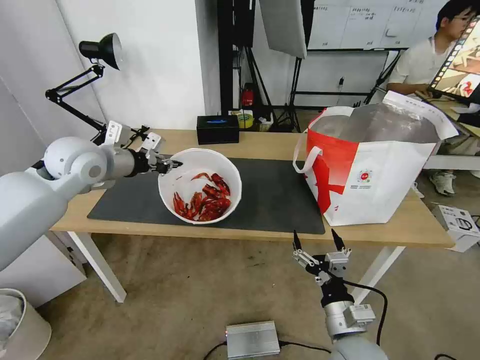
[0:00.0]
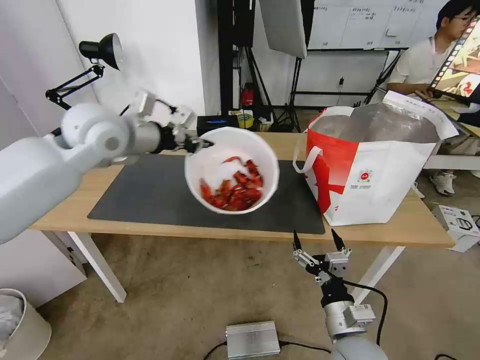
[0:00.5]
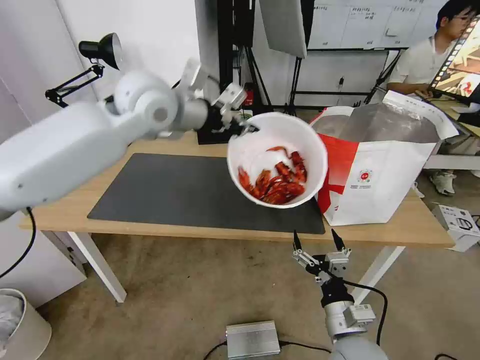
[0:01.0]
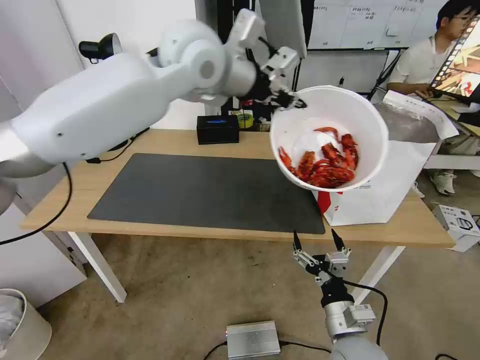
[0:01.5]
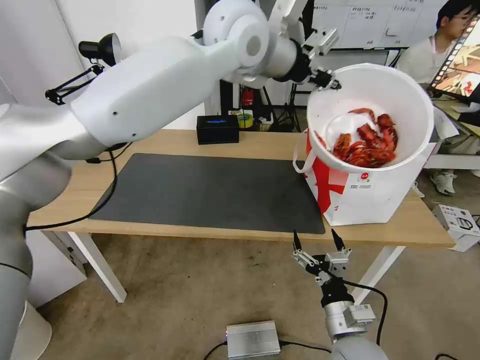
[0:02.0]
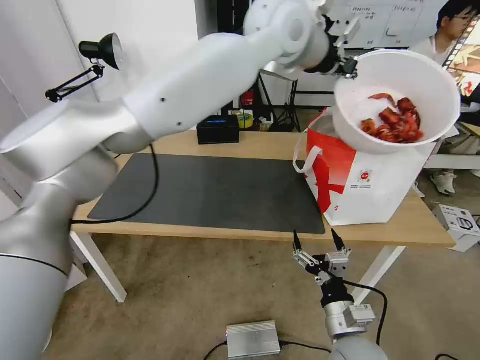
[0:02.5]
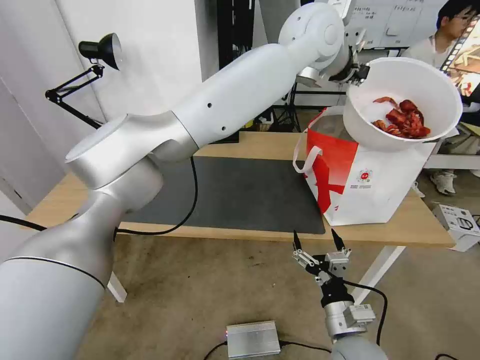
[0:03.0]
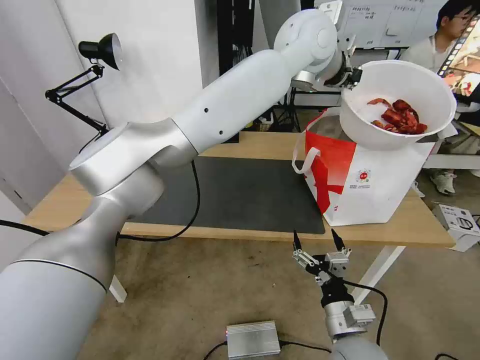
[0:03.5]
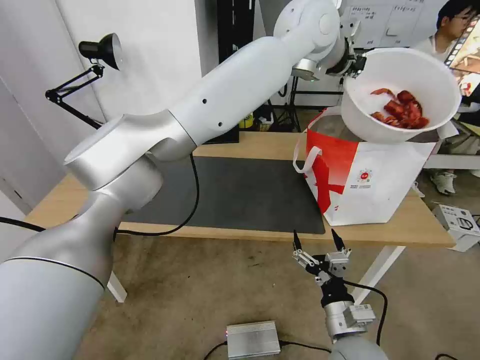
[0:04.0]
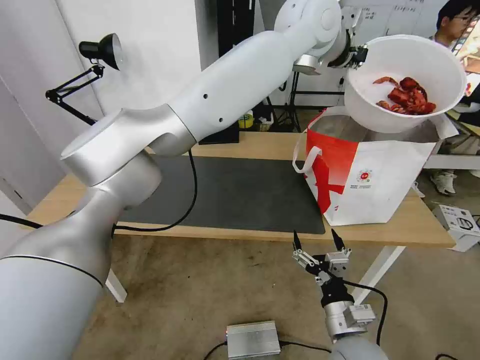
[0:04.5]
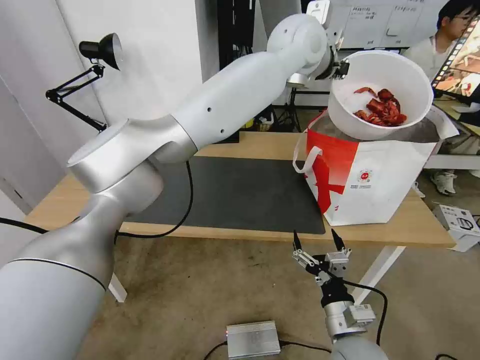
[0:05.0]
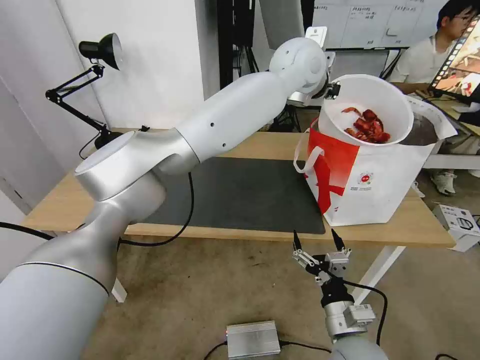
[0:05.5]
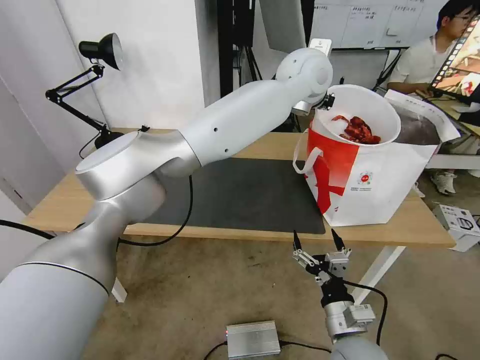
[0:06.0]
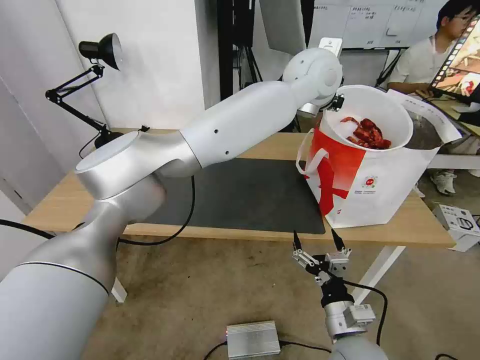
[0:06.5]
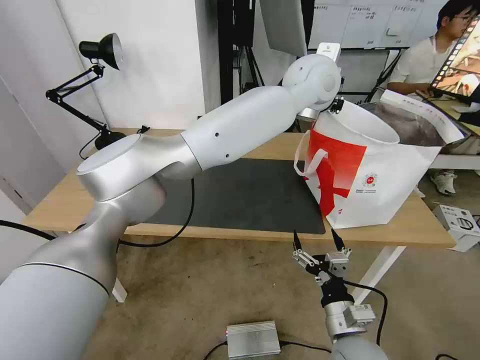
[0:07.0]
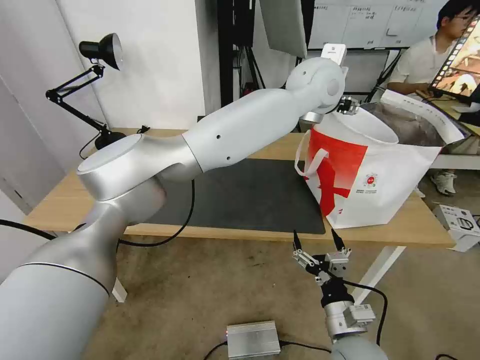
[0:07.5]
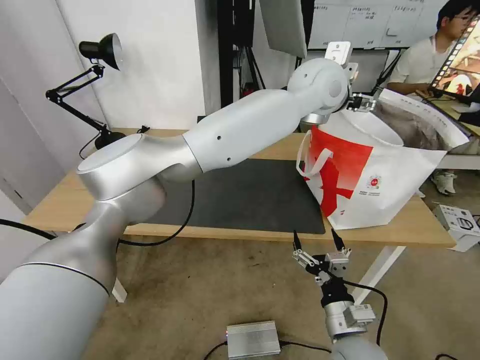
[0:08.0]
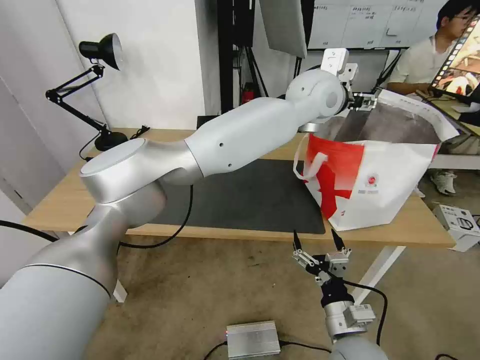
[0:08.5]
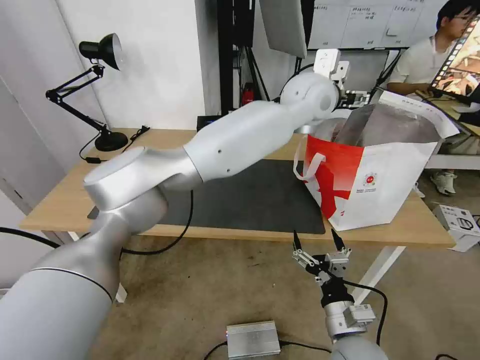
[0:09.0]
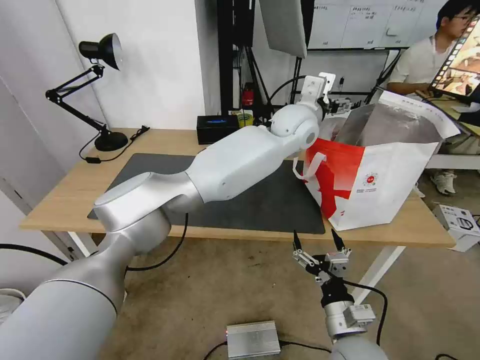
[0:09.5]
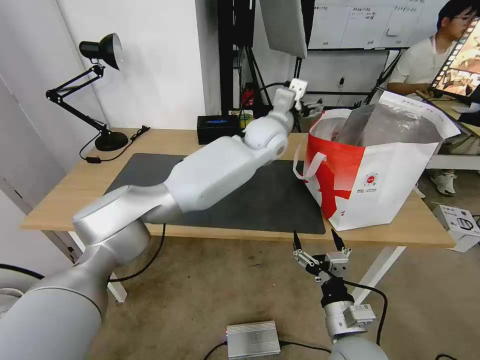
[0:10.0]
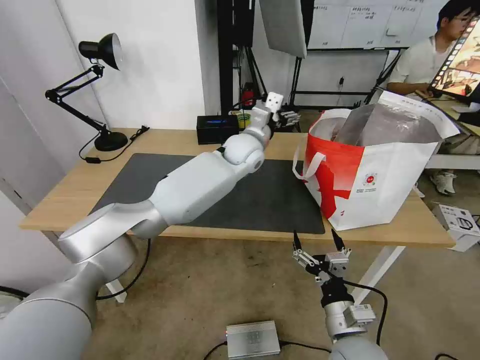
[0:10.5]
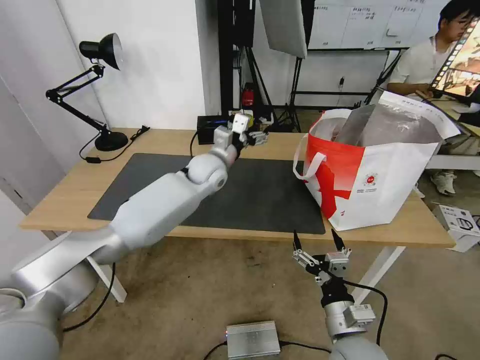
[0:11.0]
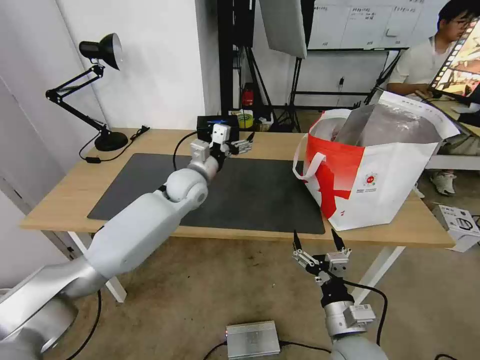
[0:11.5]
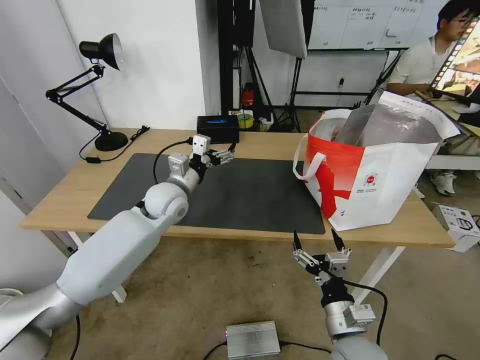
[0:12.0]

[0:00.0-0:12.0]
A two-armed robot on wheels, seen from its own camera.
Task of the whole recording: Pick up the trash from the table and place it into the takeout bag.
0:00.0 to 0:02.0: The left gripper travels to the right and upward by about 35 cm.
0:02.0 to 0:04.0: The left gripper heads to the right, covering some 10 cm.
0:04.0 to 0:06.0: The left gripper goes roughly 5 cm downward.
0:06.0 to 0:08.0: The left gripper opens its fingers.
0:08.0 to 0:10.0: The left gripper goes roughly 15 cm downward and to the left.
0:10.0 to 0:12.0: The left gripper moves to the left and downward, about 25 cm.

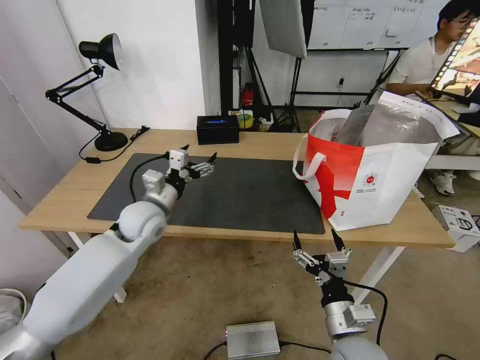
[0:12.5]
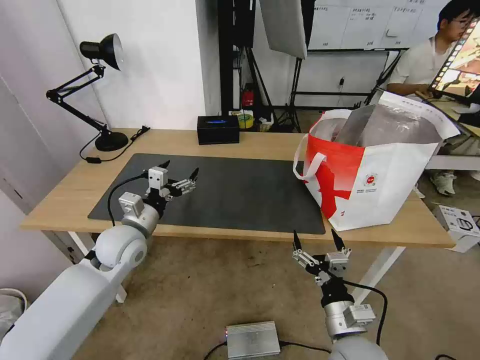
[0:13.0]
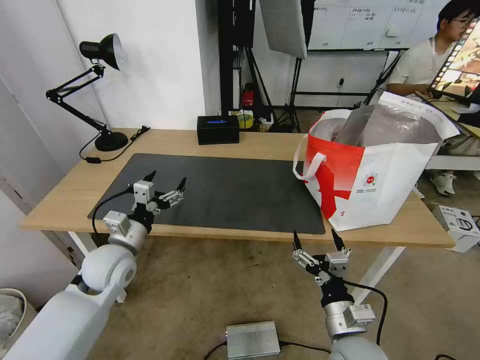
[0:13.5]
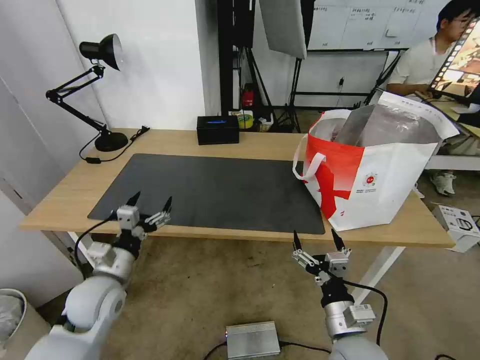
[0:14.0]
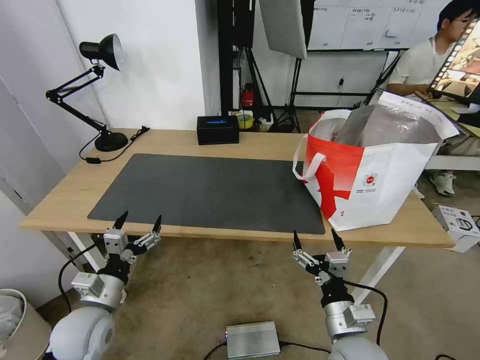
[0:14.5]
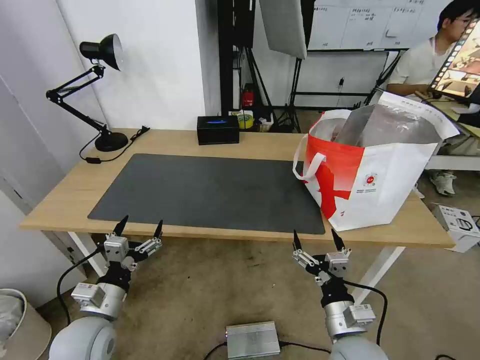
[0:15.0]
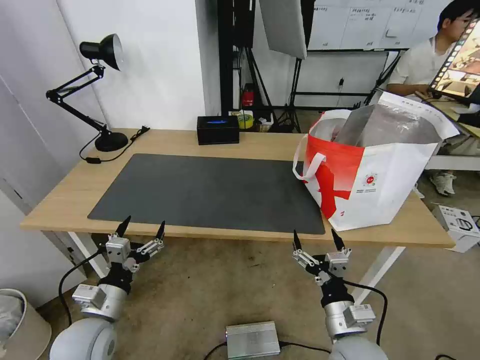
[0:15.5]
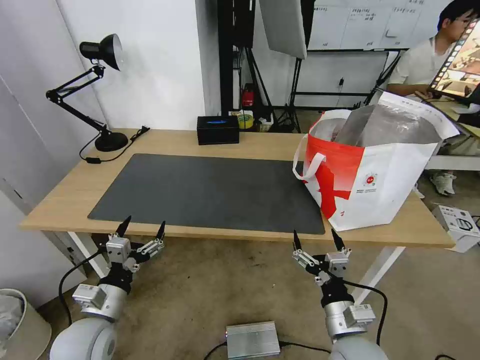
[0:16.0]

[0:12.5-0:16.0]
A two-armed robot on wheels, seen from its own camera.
Task of the whole recording: Pick up the trash from the table and place it into the takeout bag.
0:12.5 to 0:14.5: The left gripper travels backward and downward by some 25 cm.
0:14.5 to 0:16.0: The grippers stay close to where they were, moving slightly.

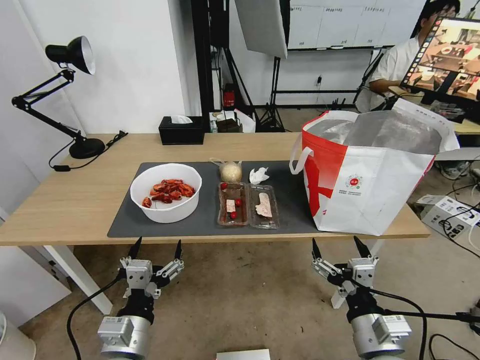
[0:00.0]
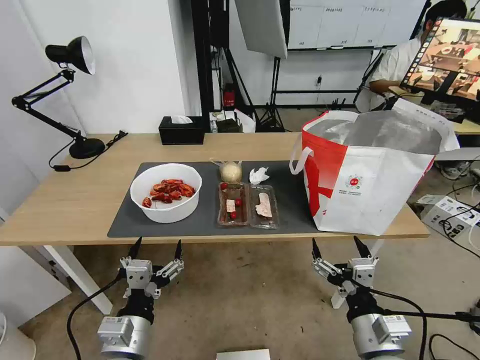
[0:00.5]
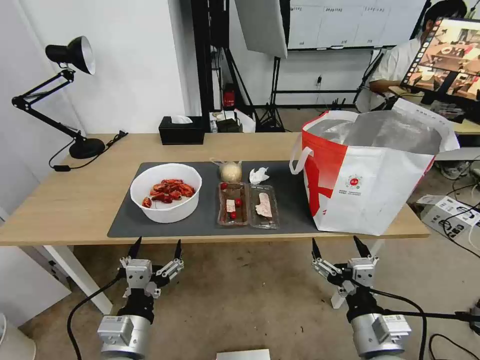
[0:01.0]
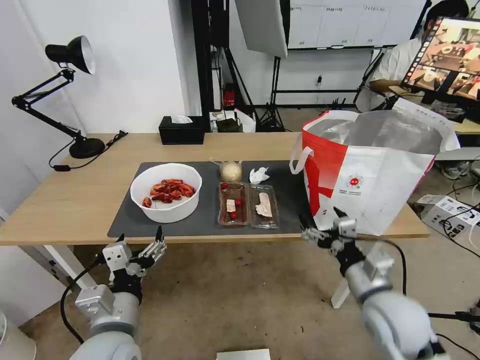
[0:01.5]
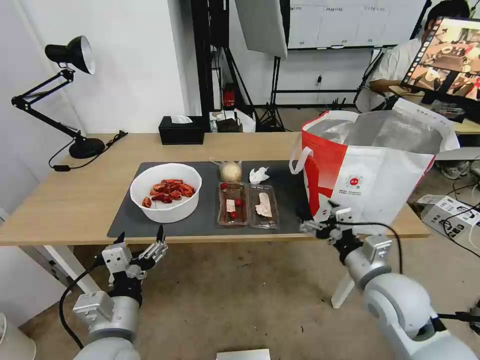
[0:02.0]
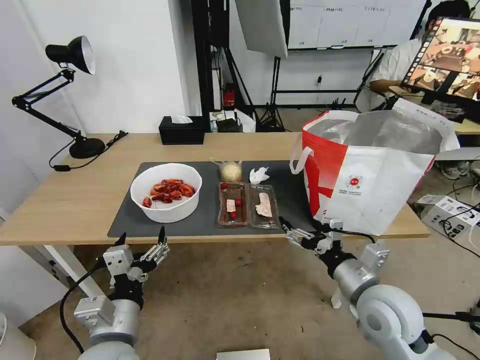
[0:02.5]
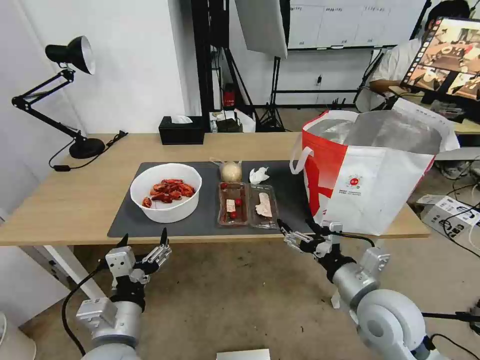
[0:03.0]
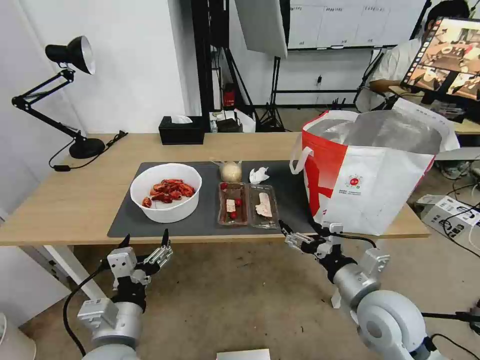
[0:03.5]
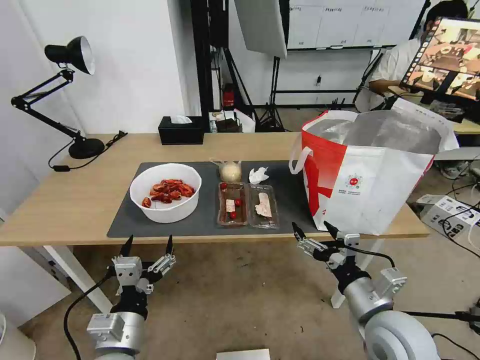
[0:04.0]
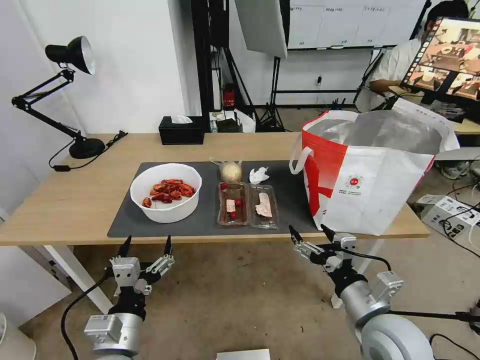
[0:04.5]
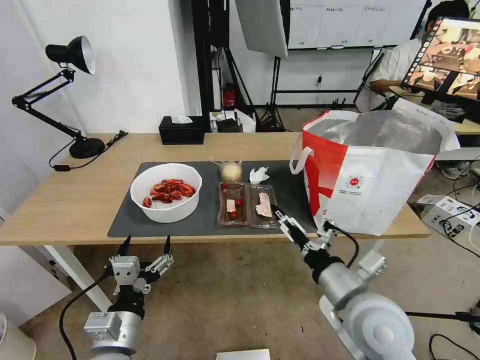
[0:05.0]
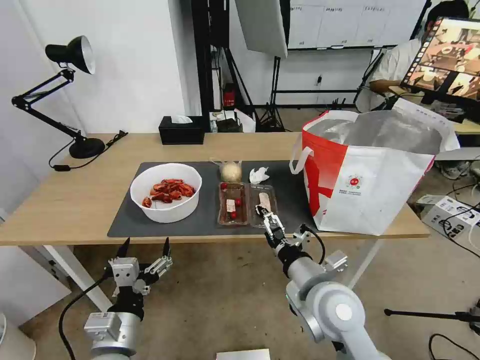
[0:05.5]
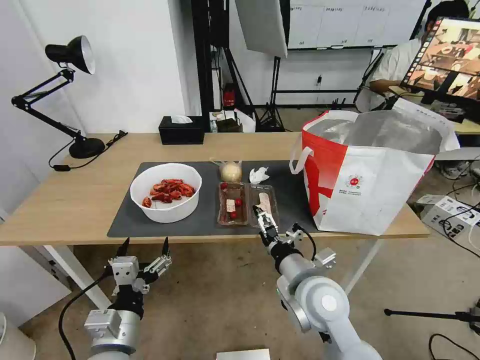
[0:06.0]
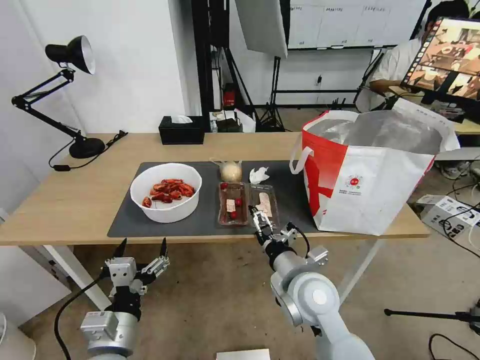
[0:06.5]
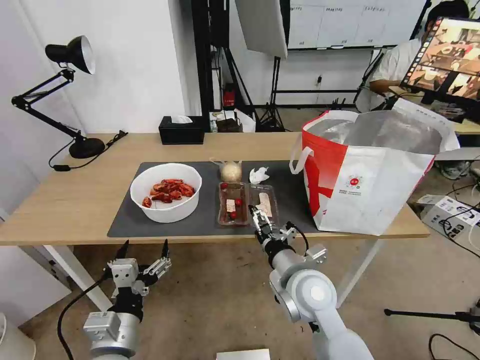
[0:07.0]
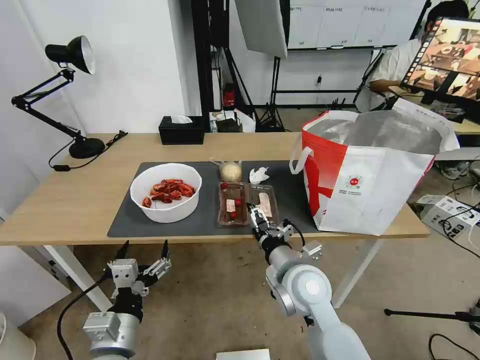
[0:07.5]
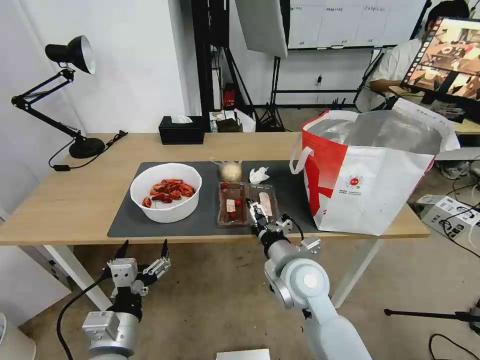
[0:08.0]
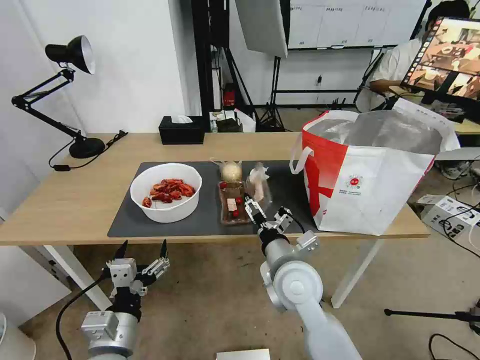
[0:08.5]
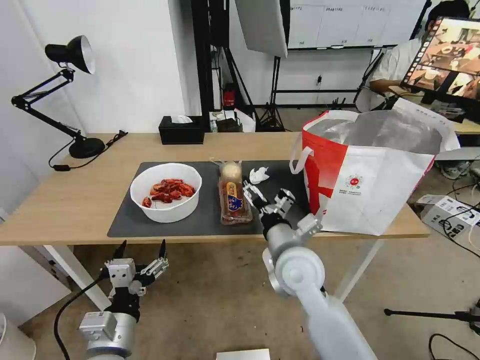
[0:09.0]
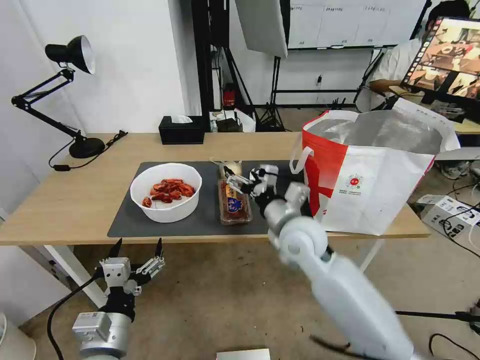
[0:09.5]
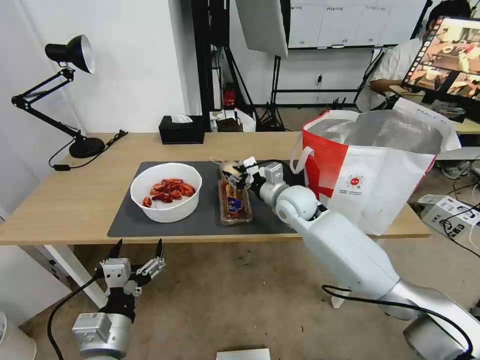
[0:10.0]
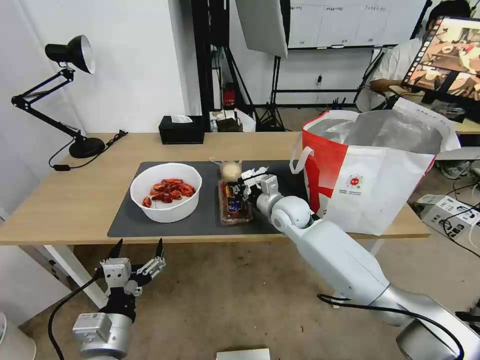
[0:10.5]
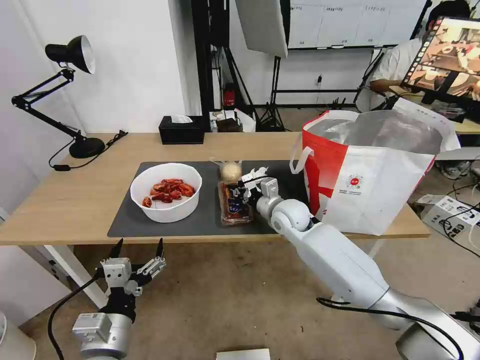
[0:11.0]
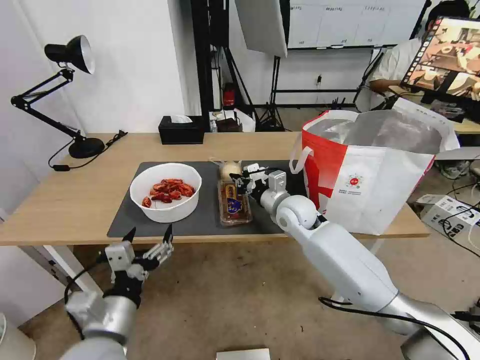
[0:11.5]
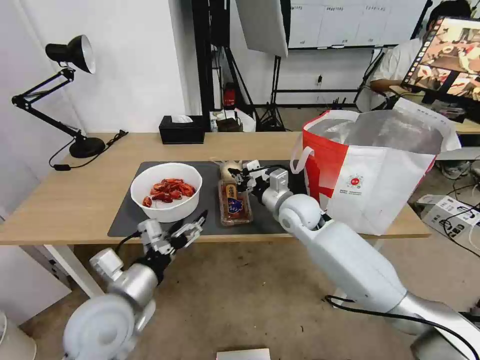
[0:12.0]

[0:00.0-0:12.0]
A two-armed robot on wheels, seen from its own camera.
Task of the whole recording: Pick up the trash from the table and place it into the takeout bag.
0:02.0 to 0:04.0: The right gripper shifts roughly 5 cm backward.
0:04.0 to 0:06.0: The right gripper moves to the left and forward, about 15 cm.
0:06.0 to 0:08.0: There are only small adjustments of the grippers.
0:08.0 to 0:10.0: The right gripper travels forward by roughly 20 cm, and closes its fingers.
0:10.0 to 0:12.0: The left gripper travels forward and upward by approximately 10 cm. The right gripper closes.
